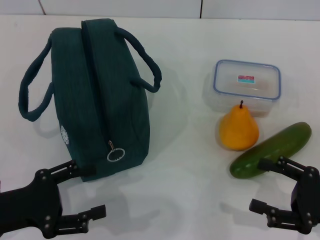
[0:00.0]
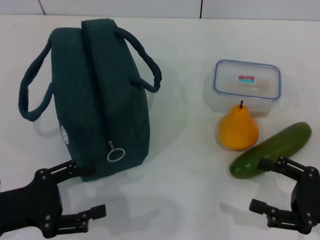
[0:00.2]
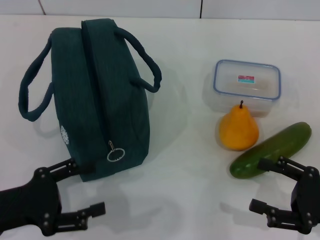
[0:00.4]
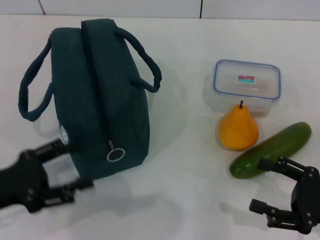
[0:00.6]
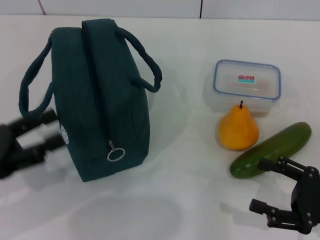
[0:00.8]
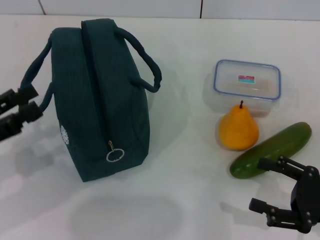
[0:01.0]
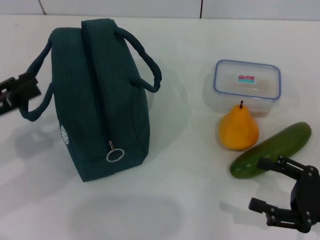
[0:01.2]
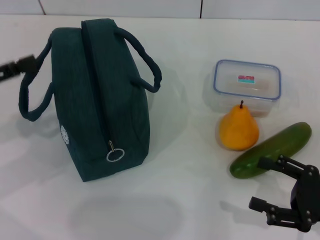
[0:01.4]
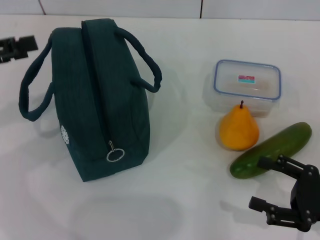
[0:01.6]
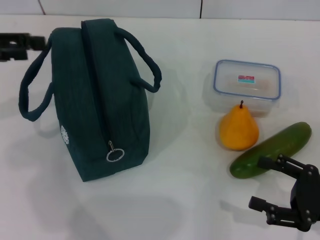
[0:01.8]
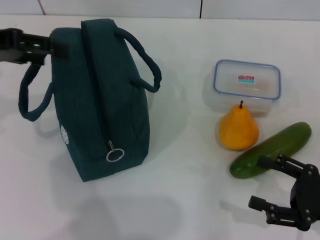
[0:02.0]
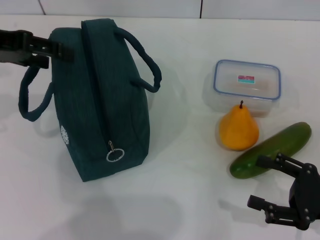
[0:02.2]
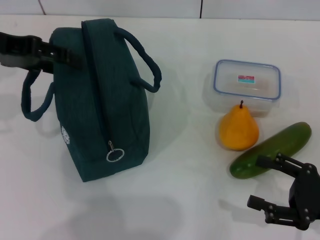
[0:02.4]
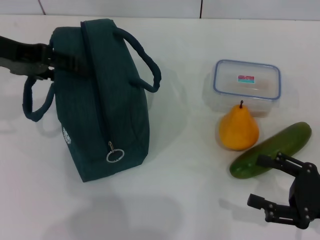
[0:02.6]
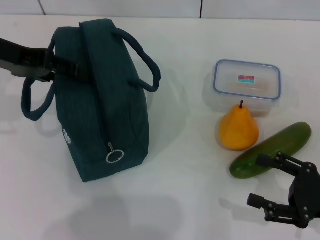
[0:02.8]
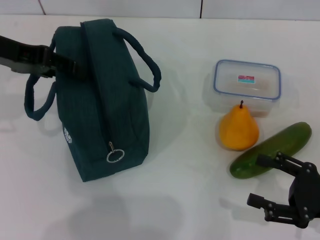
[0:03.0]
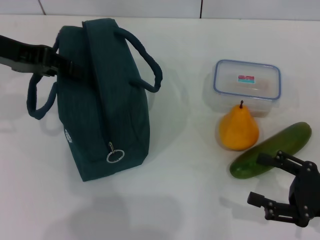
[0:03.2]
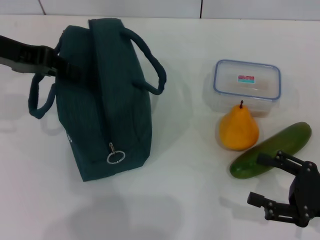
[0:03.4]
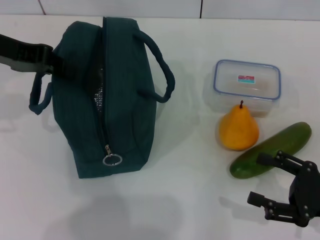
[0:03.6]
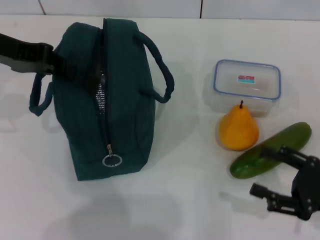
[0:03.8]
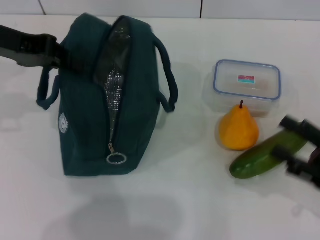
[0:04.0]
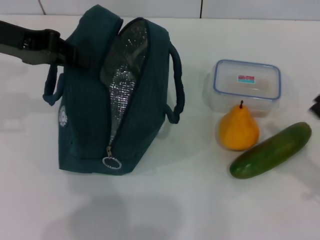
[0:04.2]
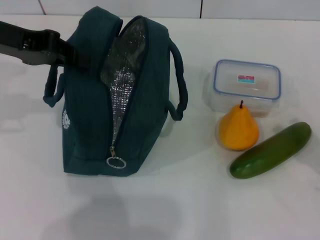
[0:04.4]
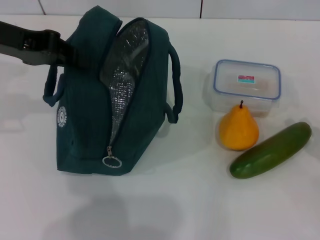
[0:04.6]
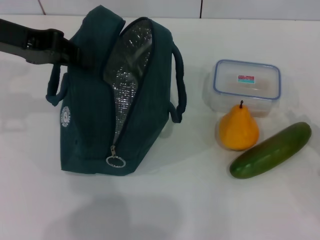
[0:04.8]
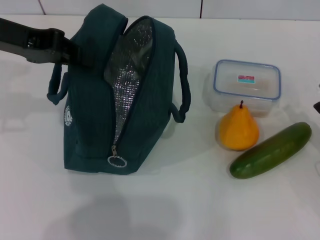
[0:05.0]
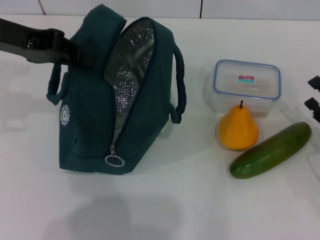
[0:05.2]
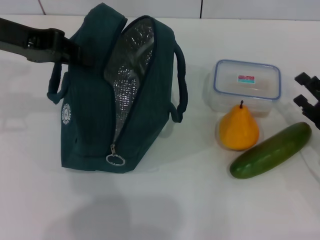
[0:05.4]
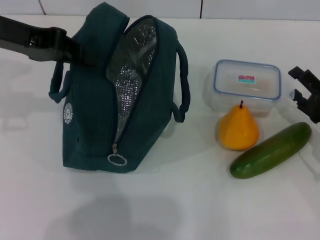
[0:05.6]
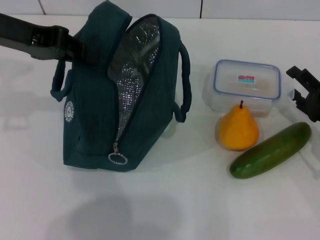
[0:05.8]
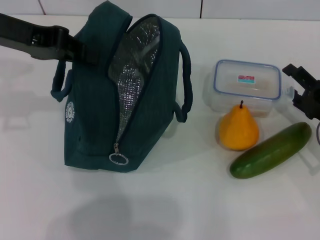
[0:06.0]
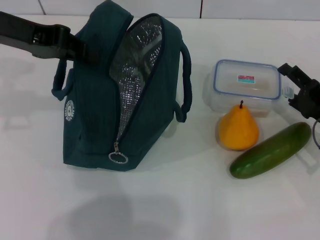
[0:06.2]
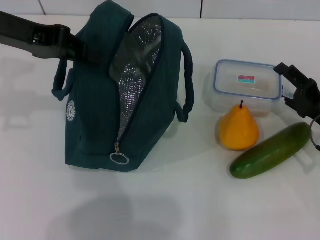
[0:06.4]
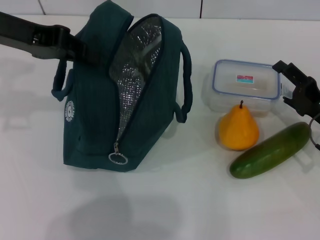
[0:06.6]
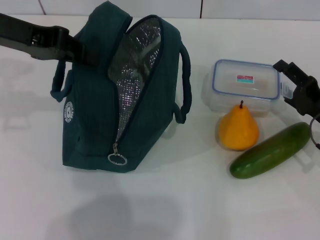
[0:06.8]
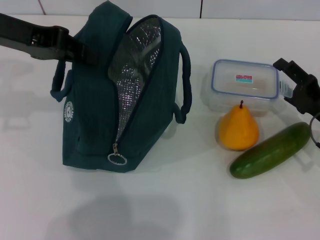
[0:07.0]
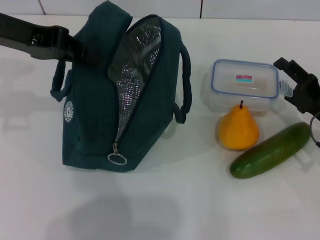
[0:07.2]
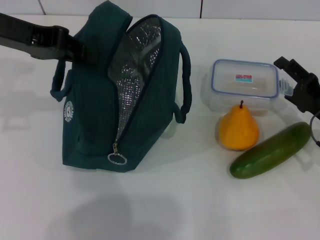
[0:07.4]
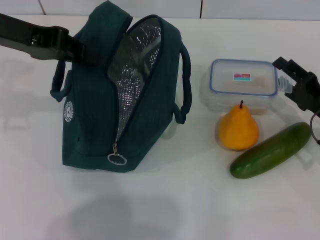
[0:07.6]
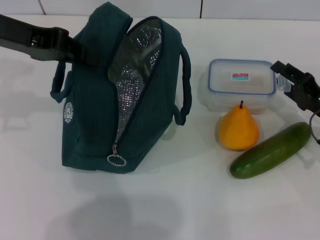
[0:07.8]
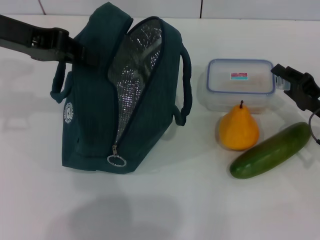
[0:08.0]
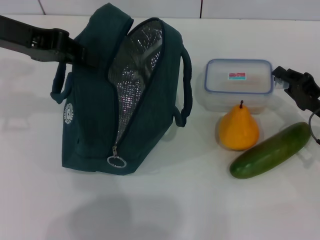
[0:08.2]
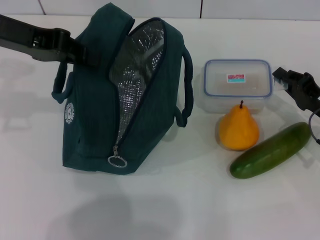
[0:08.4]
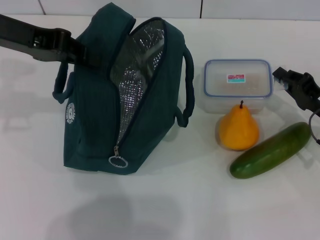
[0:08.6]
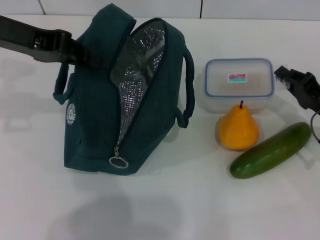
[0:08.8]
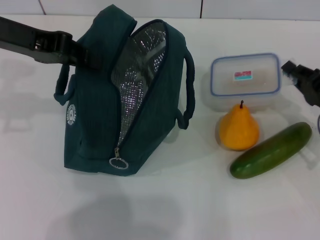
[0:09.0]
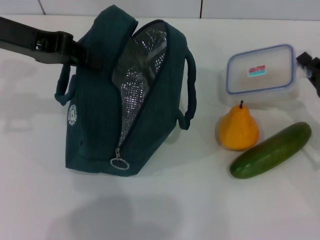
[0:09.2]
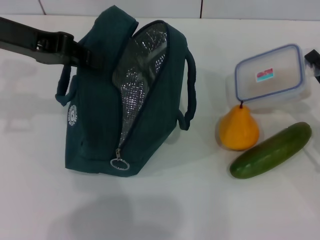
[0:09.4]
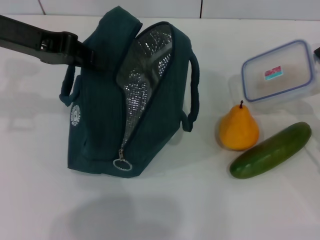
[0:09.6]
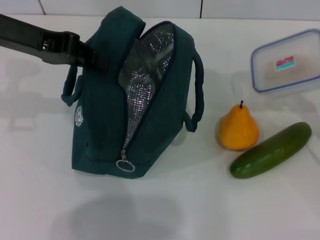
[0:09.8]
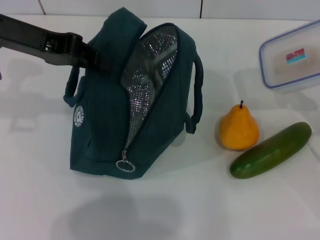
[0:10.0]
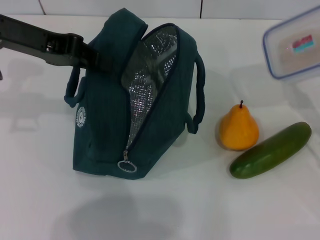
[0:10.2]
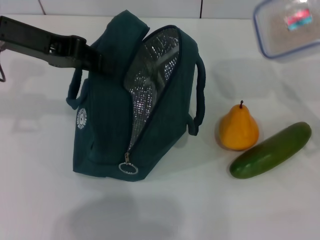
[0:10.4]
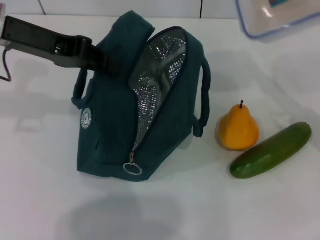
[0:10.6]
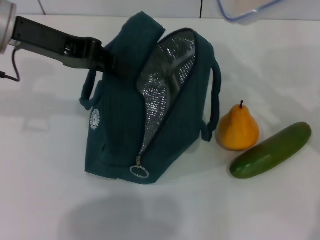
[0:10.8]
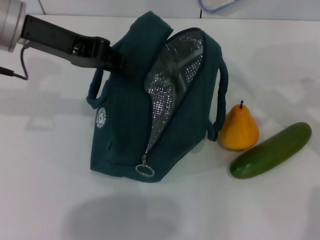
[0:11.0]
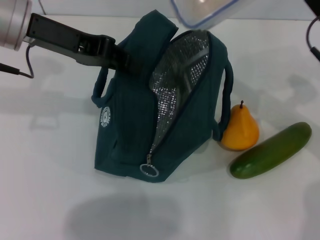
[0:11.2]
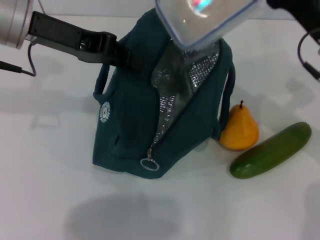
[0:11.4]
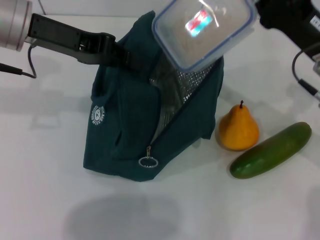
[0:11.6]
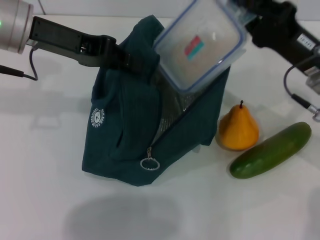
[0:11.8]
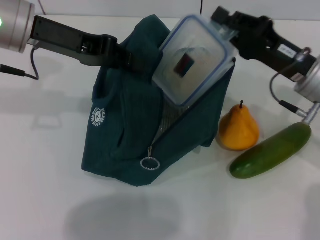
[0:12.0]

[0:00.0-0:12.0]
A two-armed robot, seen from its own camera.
Step, 0:00.0 to 0:03.6: Hold the lunch bag with your left hand.
Step, 0:04.0 to 0:09.2: Pick up the lunch box with your right hand.
0:00.0 to 0:01.6: The left gripper moves upward, forward and to the left, about 20 cm.
0:01.6 to 0:03.0: The left gripper heads to the right and forward, covering roughly 10 cm.
0:03.0 to 0:04.4: The left gripper closes its fingers.
0:04.4 to 0:06.0: The right gripper shifts approximately 10 cm forward.
0:06.0 to 0:07.6: The grippers make only small movements.
0:07.6 to 0:09.0: The right gripper closes its fingers.
0:09.0 to 0:10.4: The right gripper is displaced upward by about 5 cm.
0:10.4 to 0:12.0: The right gripper shifts some 10 cm to the left.

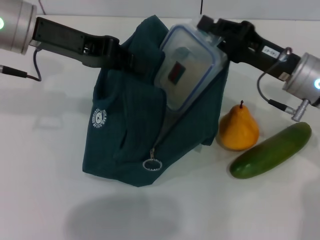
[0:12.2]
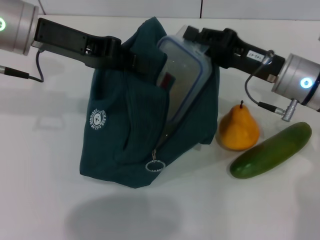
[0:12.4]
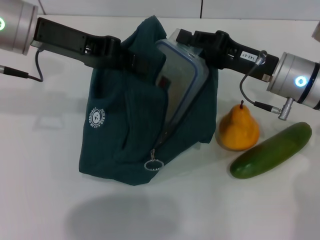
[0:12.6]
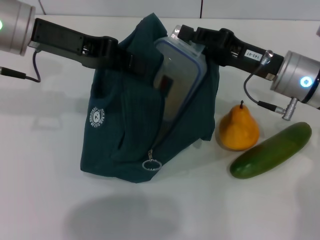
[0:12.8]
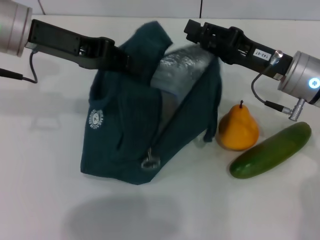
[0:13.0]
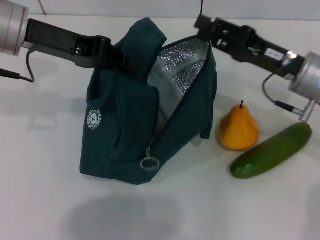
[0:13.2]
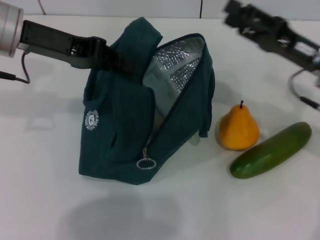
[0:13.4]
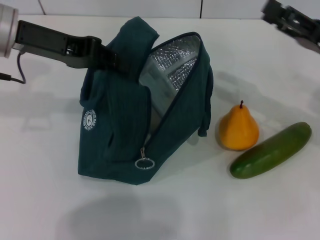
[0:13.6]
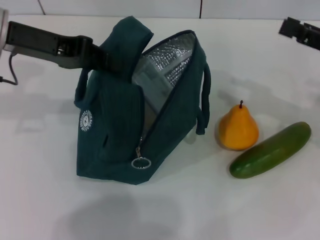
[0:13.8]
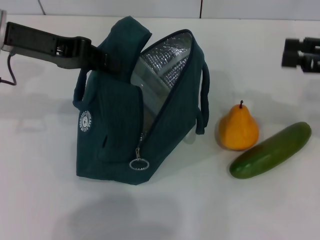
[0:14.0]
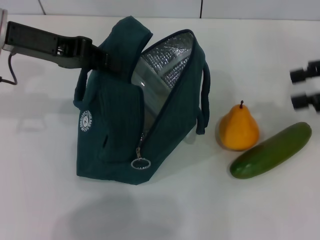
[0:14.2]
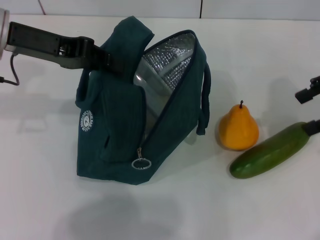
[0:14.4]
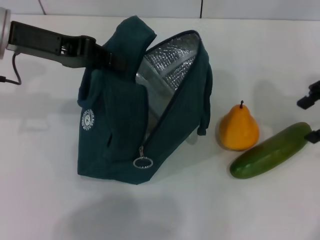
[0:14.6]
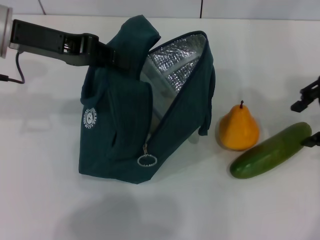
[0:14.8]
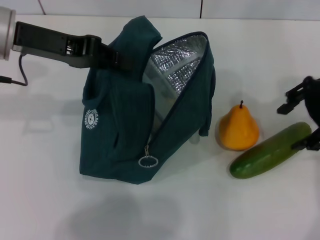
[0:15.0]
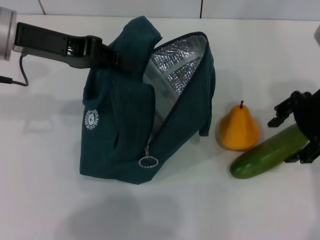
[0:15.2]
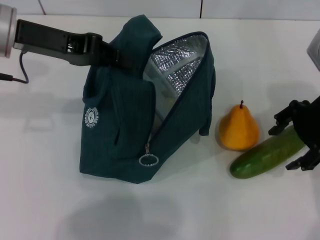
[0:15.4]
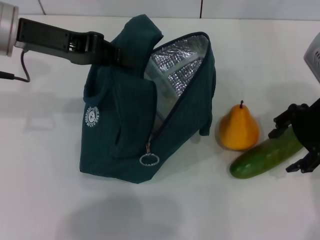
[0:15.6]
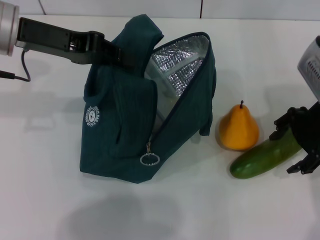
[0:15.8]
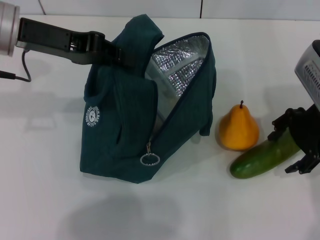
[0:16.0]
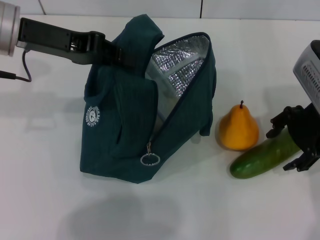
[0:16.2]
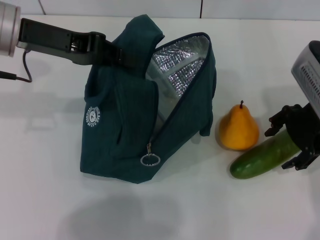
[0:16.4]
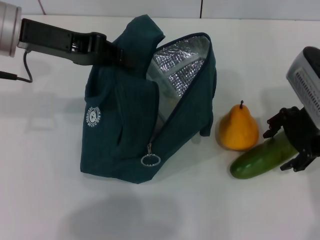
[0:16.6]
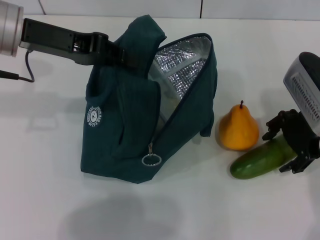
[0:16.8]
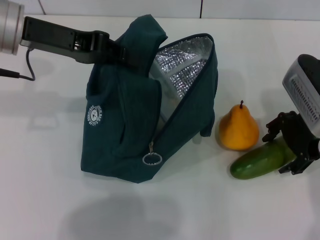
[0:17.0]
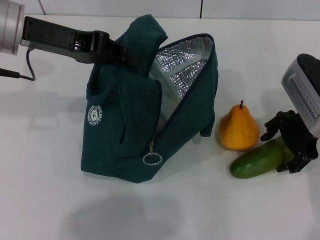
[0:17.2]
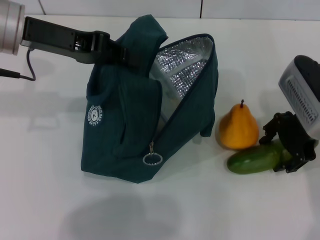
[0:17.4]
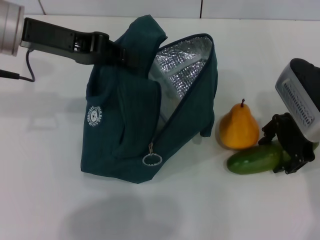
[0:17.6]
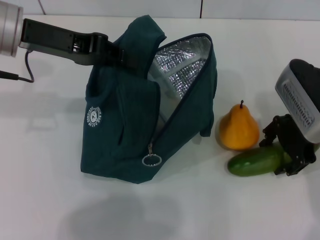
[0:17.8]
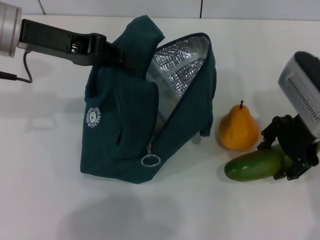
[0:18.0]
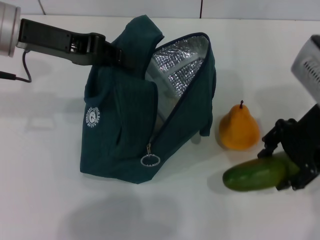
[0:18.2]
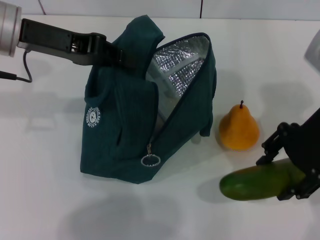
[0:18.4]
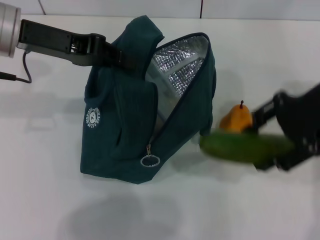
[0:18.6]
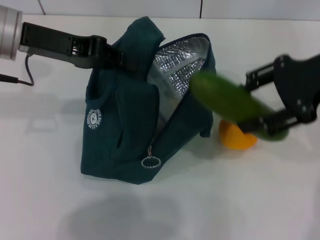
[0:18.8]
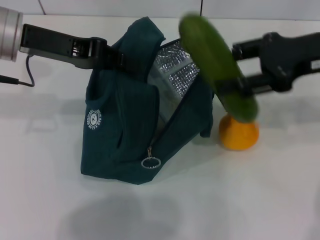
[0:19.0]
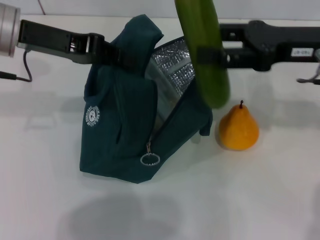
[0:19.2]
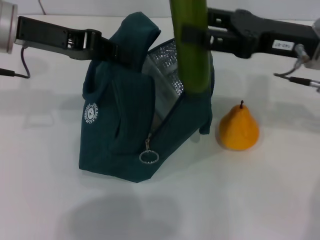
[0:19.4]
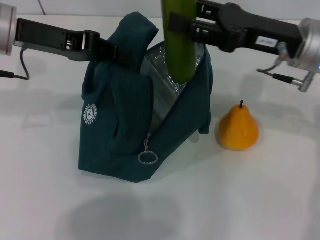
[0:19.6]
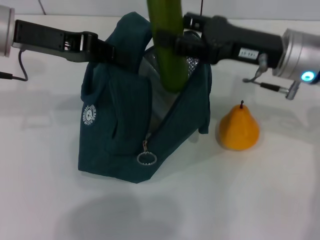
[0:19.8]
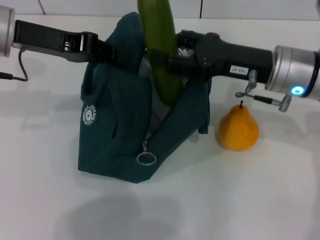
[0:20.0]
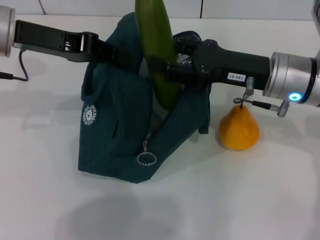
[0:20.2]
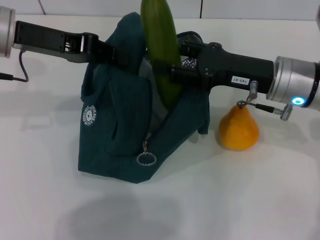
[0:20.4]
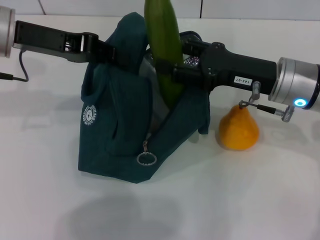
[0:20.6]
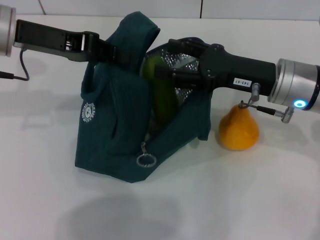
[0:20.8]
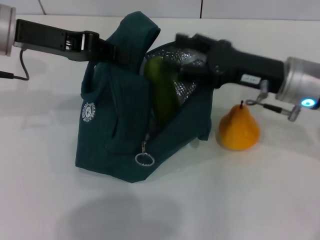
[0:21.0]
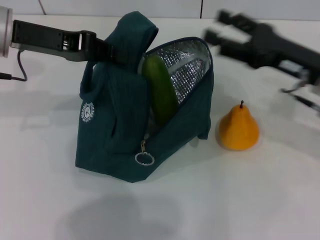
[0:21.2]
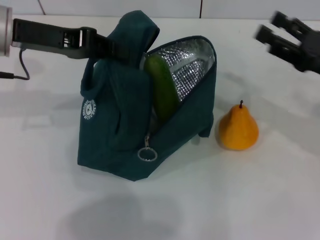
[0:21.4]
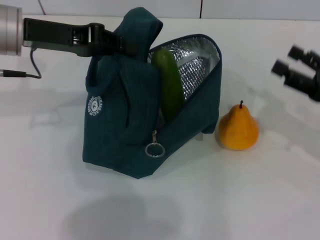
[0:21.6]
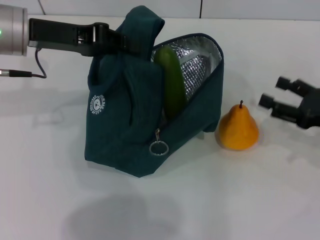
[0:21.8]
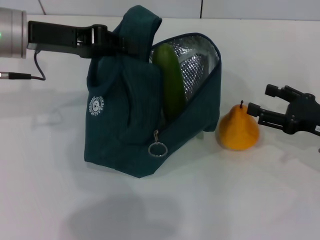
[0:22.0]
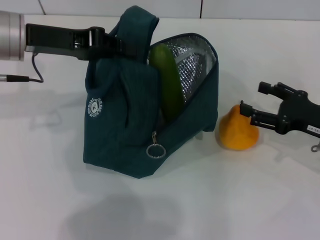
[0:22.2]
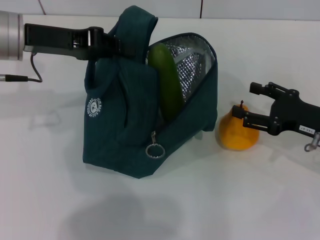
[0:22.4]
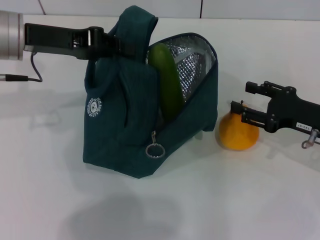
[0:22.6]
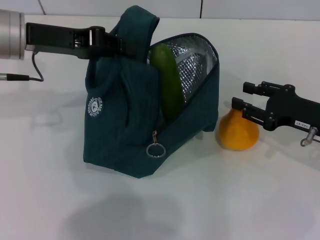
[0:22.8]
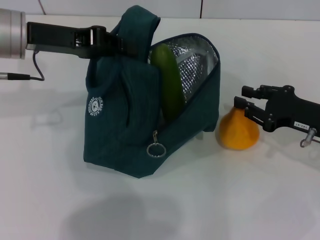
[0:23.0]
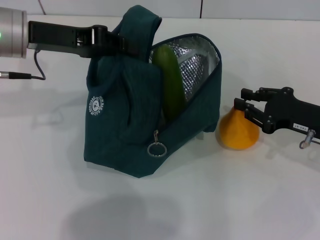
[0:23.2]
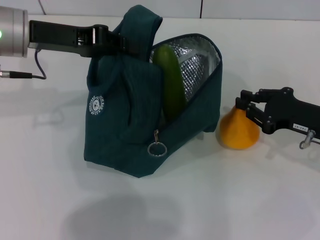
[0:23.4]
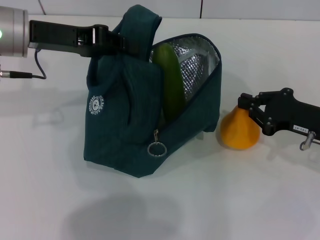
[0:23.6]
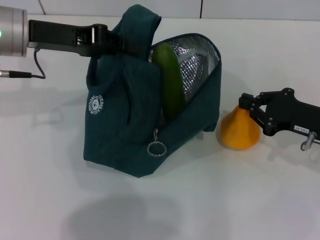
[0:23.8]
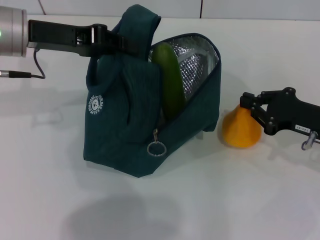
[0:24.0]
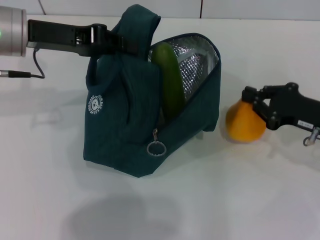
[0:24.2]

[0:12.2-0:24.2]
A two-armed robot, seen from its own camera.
Step, 0:13.2 to 0:17.8: Pick up the cucumber with your right hand.
Step, 0:18.0 to 0:20.8: Put the cucumber into the lunch bag with your right hand.
Step, 0:21.2 to 0:24.0: Grab the pear with your right hand.
0:12.2 to 0:13.8: The right gripper goes some 10 cm to the right, and opens up.
0:13.8 to 0:15.2: The right gripper goes roughly 10 cm to the left and upward.
0:15.2 to 0:16.6: The grippers stay close to where they were, moving slightly.
0:16.6 to 0:18.2: The grippers stay close to where they were, moving slightly.
0:18.2 to 0:19.8: The right gripper shifts by roughly 5 cm.
0:19.8 to 0:21.2: The right gripper moves to the right, about 5 cm.
0:21.2 to 0:22.6: The right gripper moves downward, roughly 5 cm.
0:22.6 to 0:24.2: The right gripper closes.
